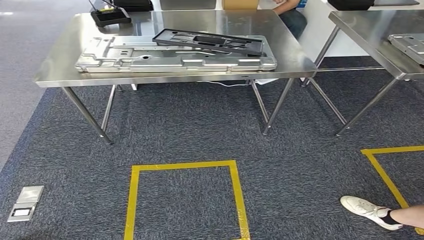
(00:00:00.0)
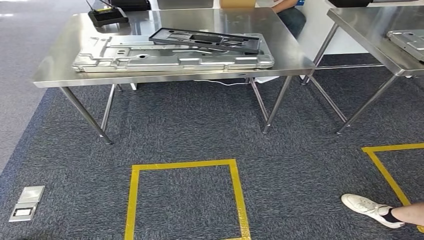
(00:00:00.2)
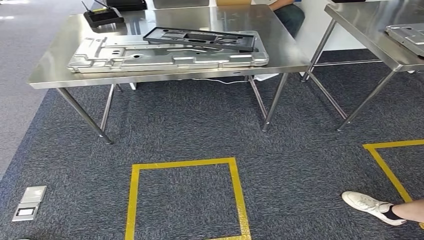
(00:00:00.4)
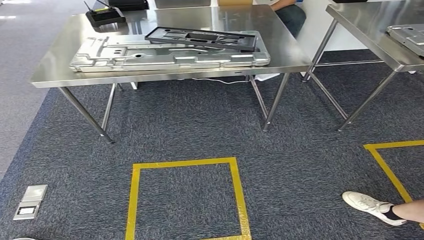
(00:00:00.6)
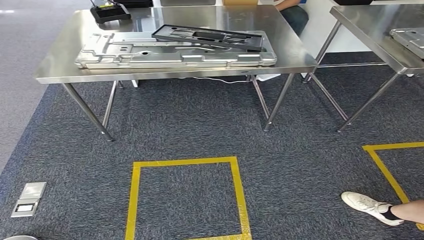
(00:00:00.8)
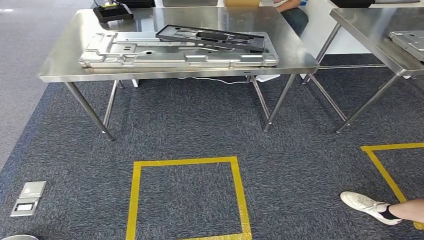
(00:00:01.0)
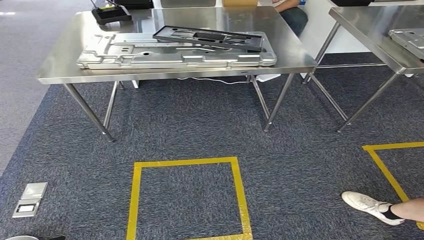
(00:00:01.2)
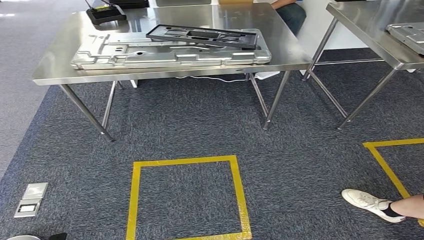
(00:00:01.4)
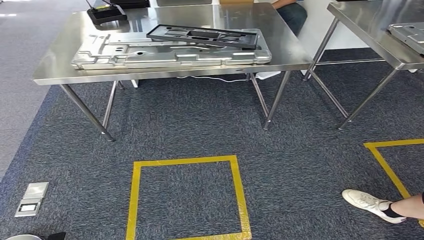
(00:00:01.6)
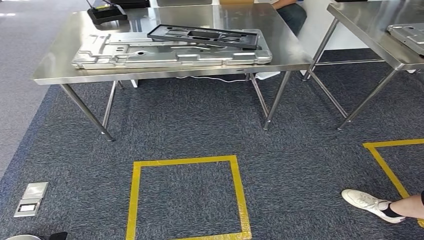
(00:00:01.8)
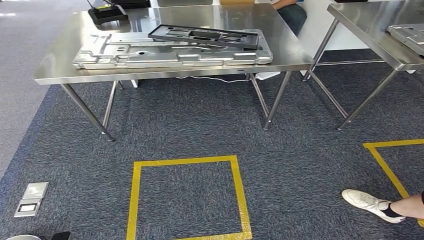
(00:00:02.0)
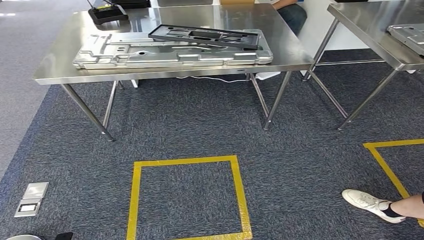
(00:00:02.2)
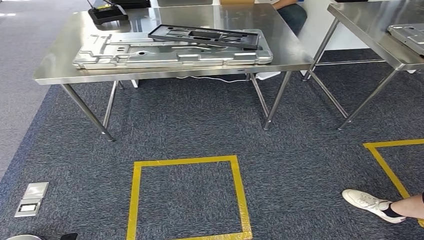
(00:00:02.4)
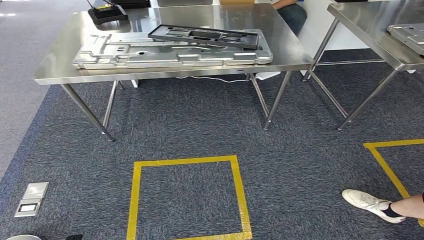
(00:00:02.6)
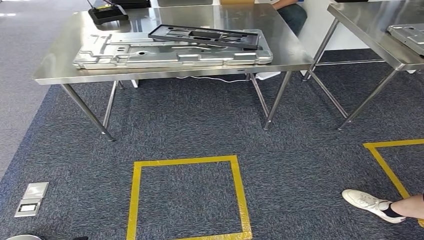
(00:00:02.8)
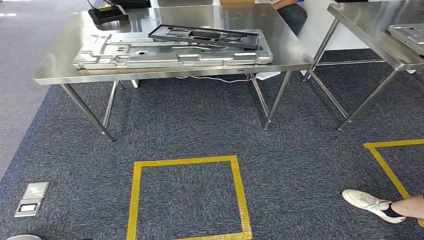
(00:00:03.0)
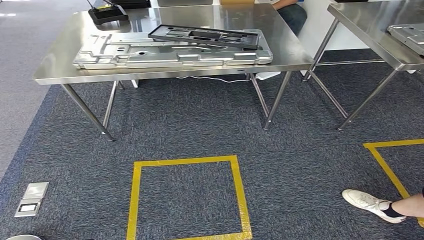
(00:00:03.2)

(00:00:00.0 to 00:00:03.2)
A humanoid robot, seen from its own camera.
Step, 00:00:00.0 - 00:00:03.2: Return to the initial position at the shelf.
00:00:01.6 - 00:00:03.2: The left hand shifts roughly 5 cm backward.
